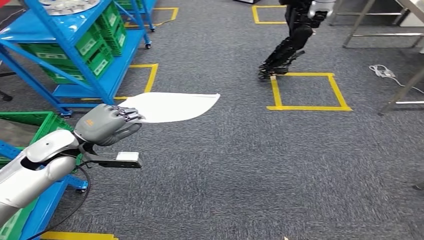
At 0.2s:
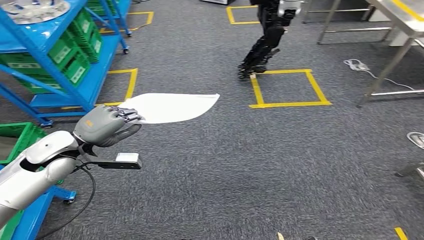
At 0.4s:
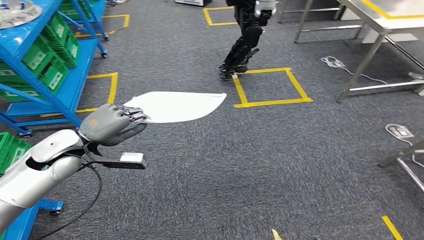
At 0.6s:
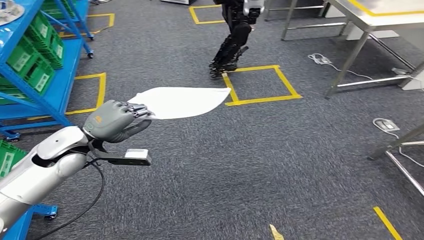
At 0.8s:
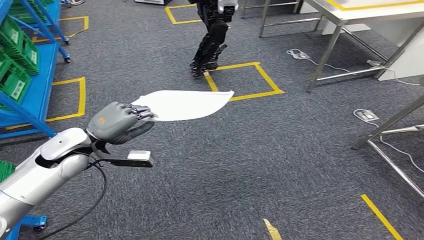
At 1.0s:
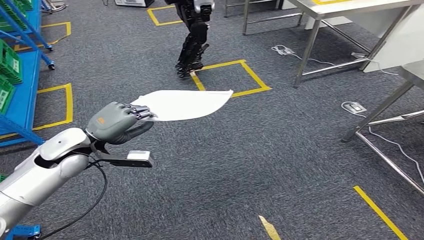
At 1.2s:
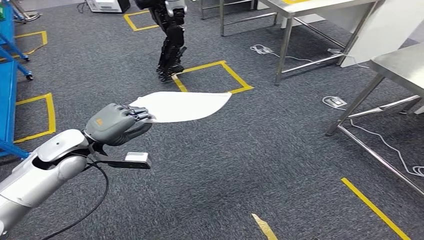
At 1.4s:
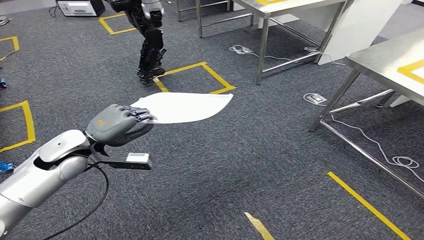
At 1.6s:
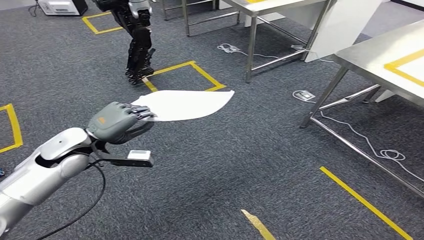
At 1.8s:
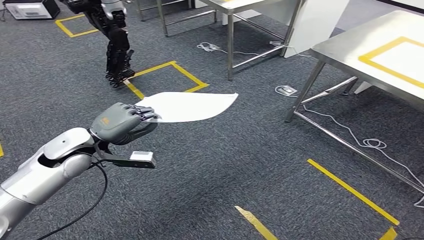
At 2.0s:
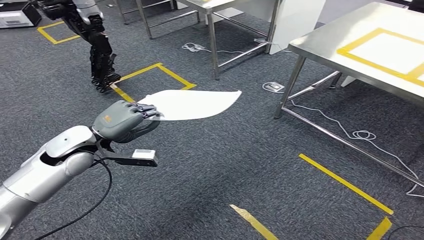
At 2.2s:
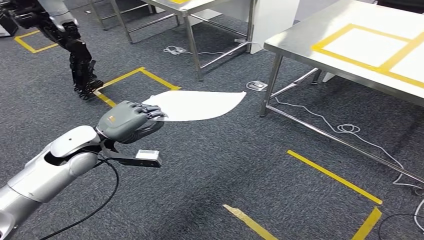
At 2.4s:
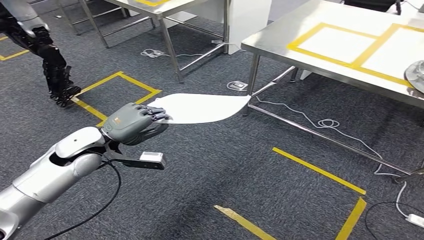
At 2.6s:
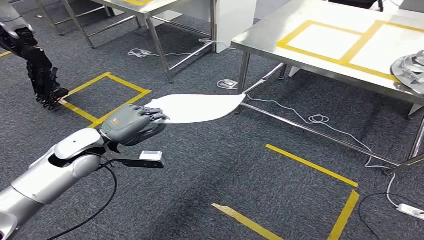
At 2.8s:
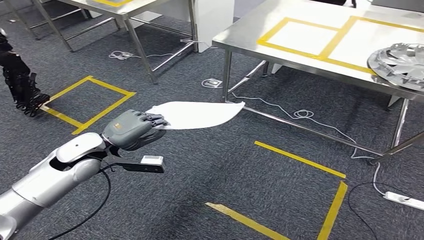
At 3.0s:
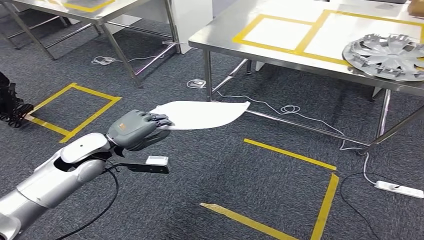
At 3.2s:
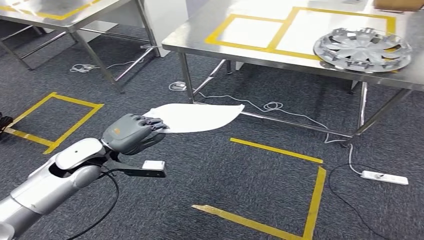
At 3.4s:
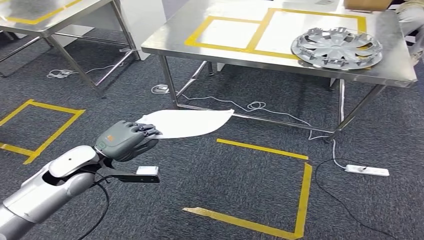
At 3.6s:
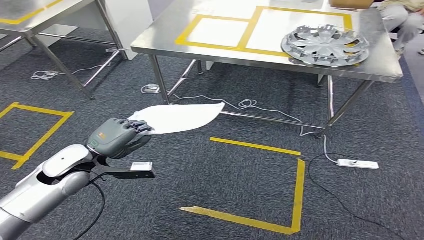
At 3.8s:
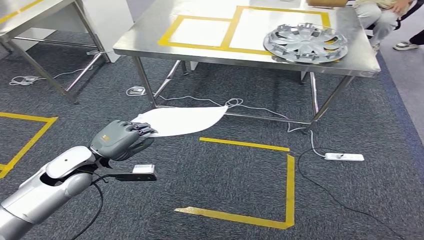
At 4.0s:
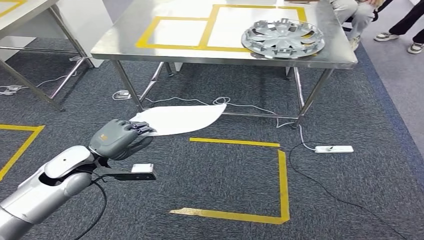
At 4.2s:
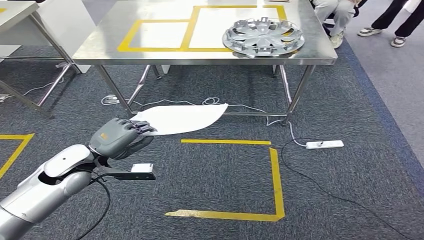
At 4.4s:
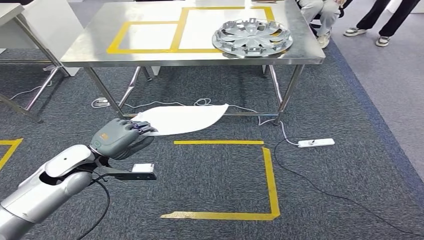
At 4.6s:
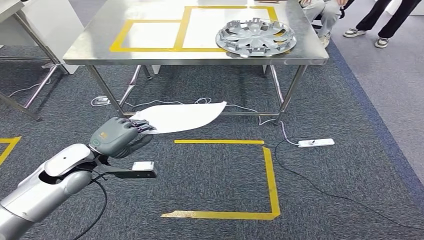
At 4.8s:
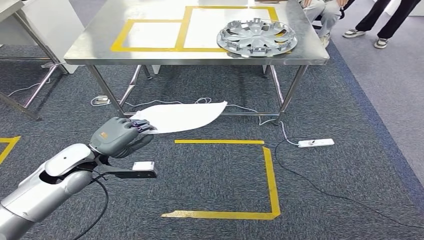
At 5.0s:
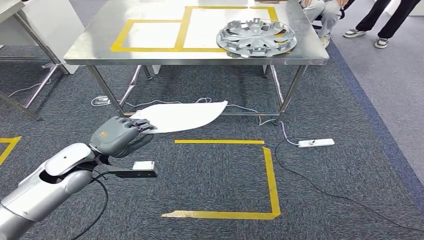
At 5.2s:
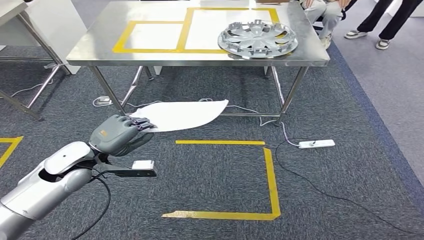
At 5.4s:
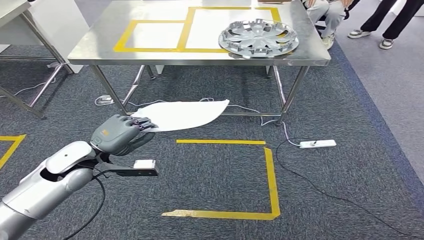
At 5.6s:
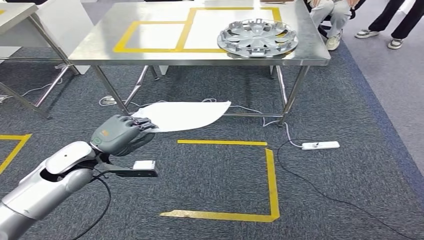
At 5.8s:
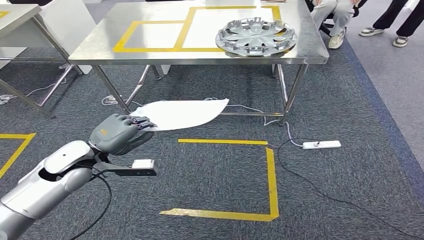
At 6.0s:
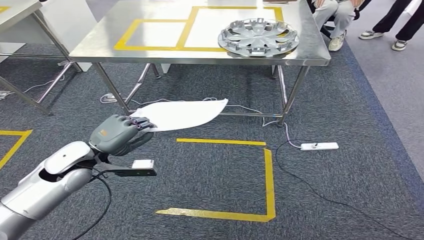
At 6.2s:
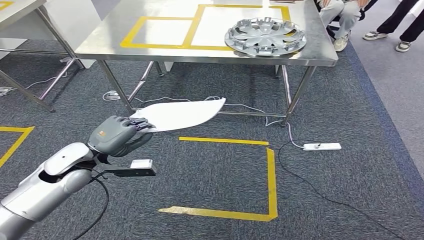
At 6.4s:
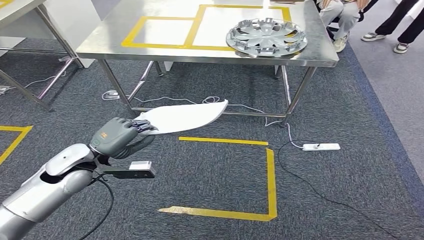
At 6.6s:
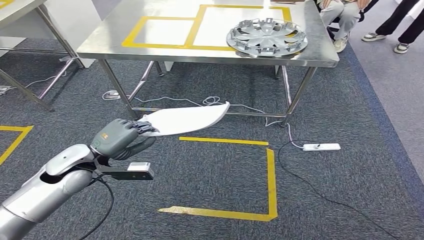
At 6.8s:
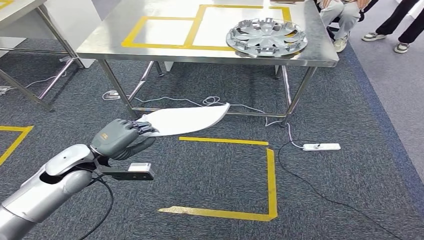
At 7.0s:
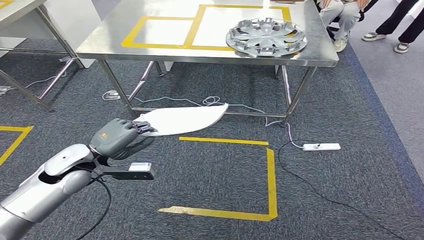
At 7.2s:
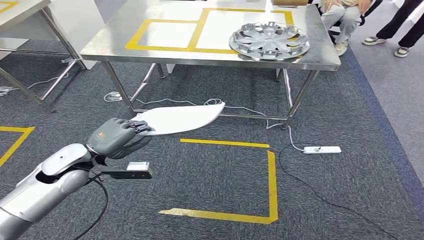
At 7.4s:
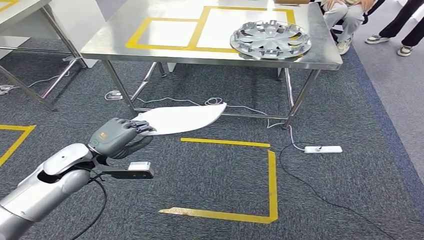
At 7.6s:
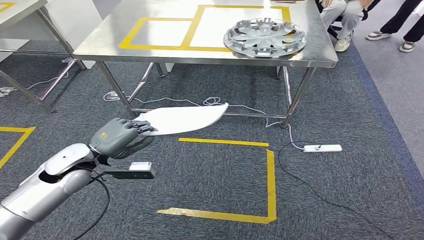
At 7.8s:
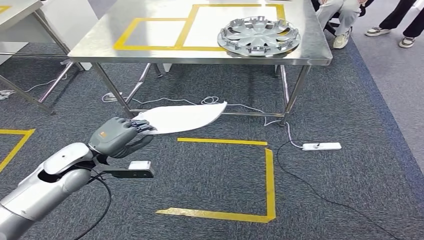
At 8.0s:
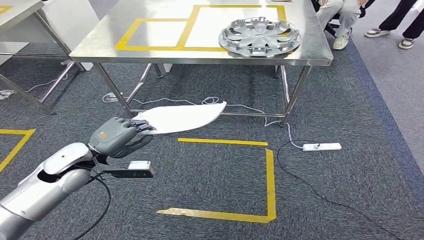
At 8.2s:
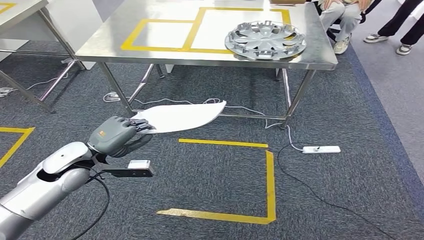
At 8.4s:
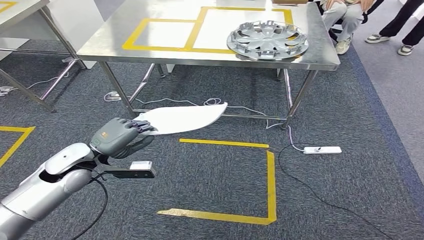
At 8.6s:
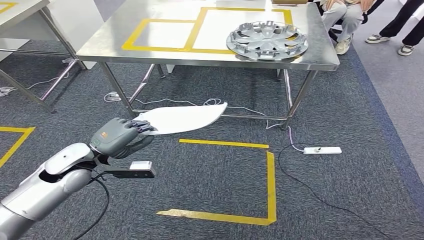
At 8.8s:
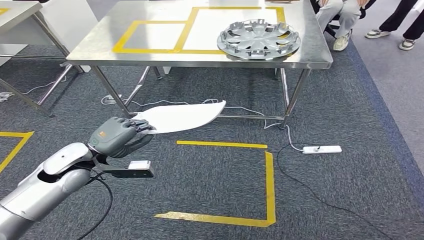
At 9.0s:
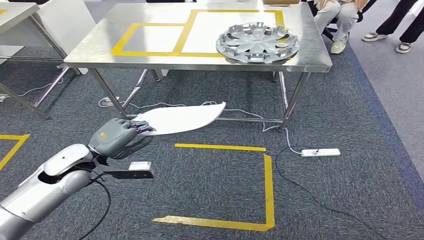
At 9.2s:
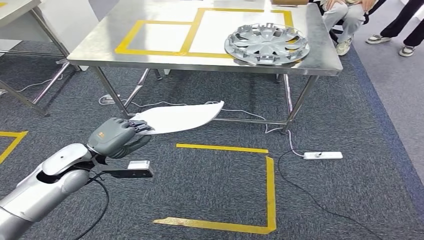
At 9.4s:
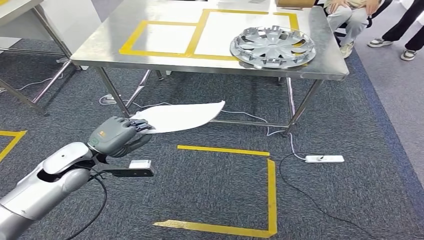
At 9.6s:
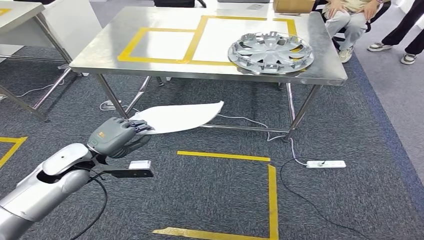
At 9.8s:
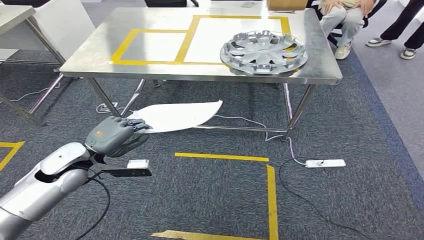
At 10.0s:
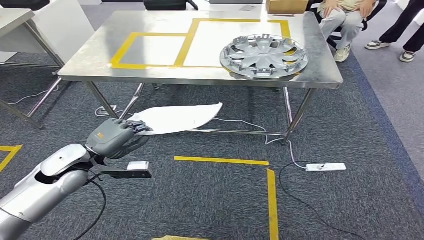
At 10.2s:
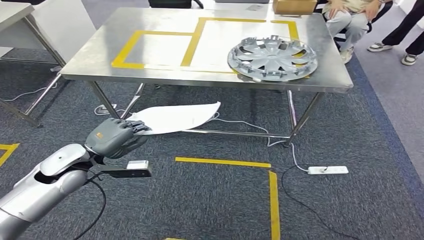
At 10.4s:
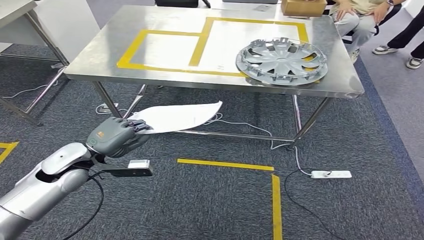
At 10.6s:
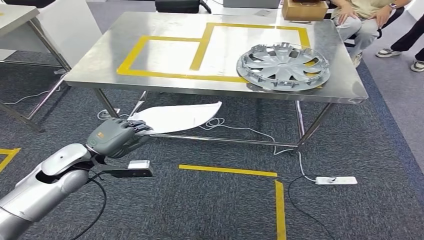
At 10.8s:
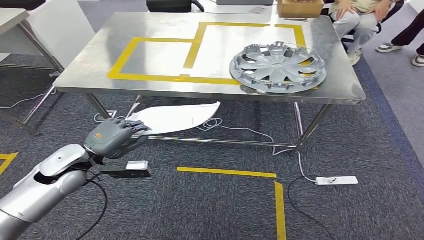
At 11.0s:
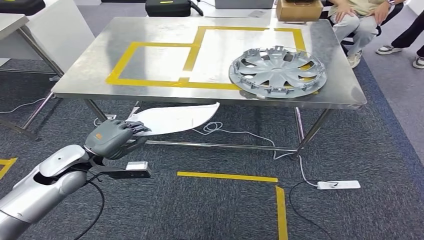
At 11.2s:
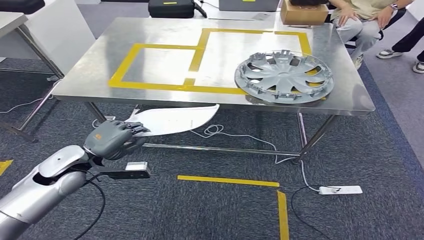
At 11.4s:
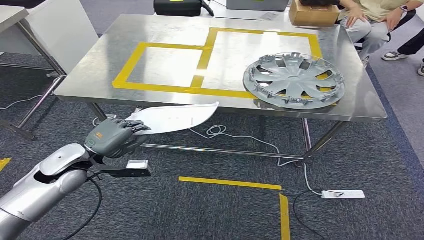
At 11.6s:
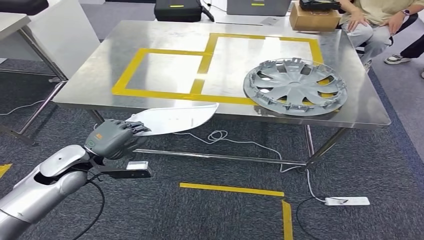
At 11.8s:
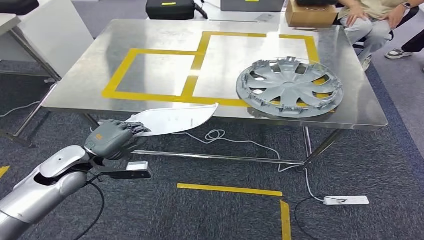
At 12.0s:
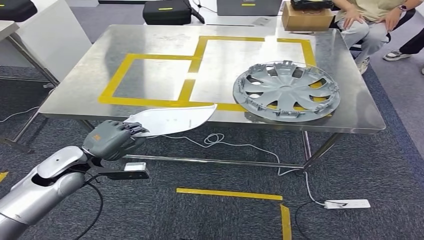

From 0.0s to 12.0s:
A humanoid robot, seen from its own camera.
From 6.0s to 7.6s: The hands move only a little.

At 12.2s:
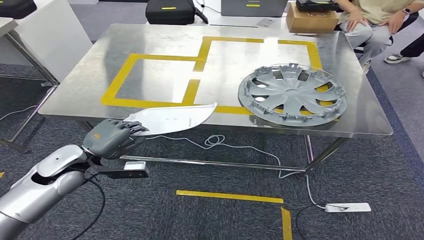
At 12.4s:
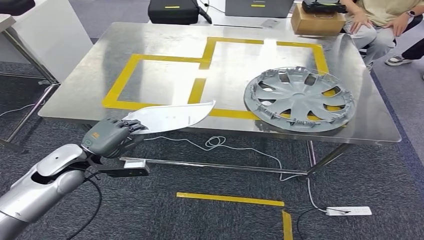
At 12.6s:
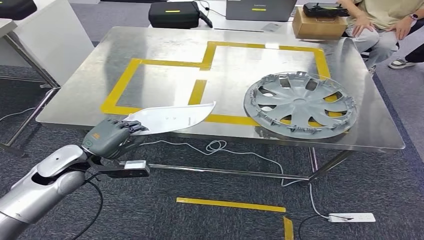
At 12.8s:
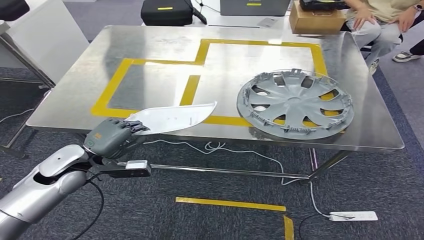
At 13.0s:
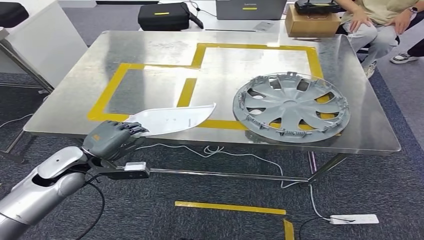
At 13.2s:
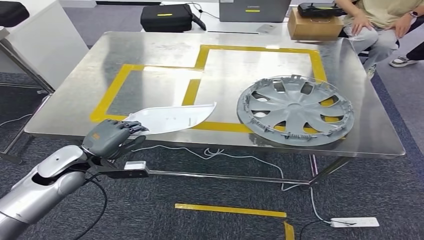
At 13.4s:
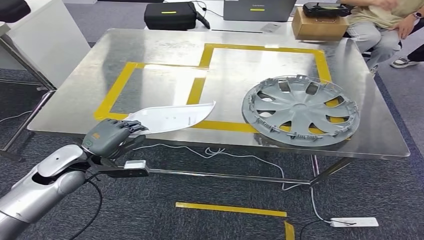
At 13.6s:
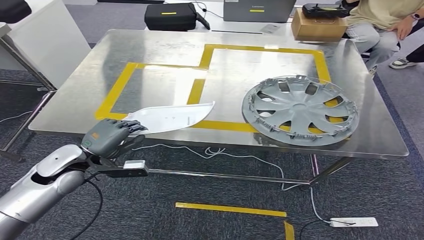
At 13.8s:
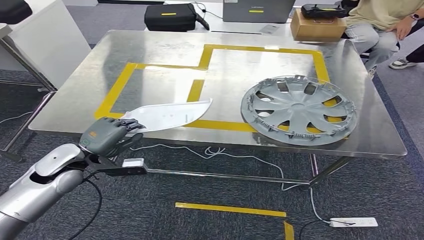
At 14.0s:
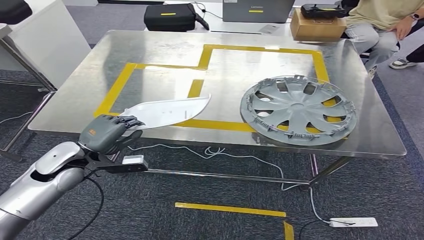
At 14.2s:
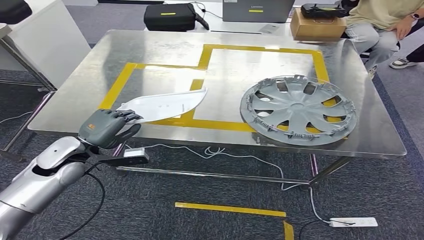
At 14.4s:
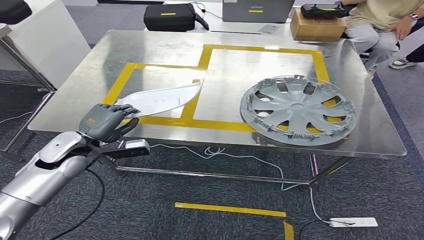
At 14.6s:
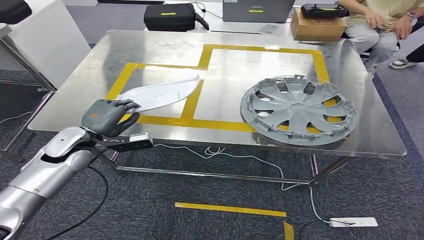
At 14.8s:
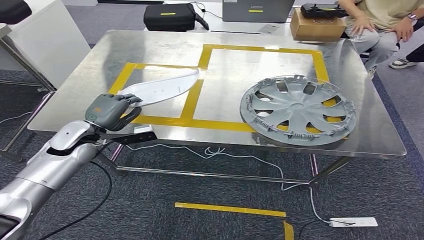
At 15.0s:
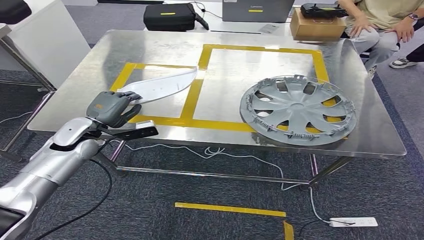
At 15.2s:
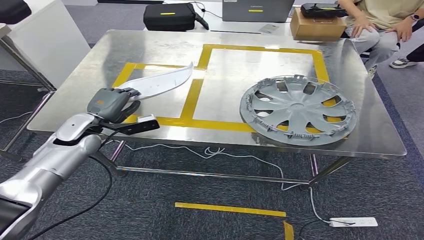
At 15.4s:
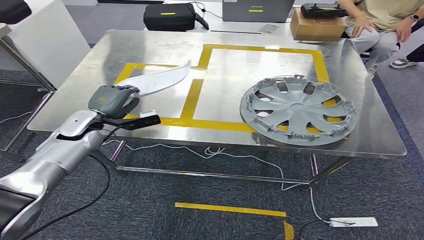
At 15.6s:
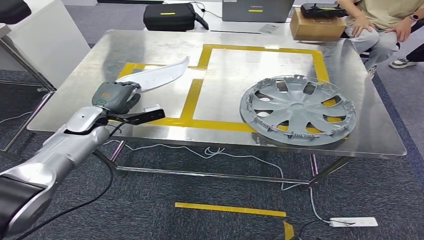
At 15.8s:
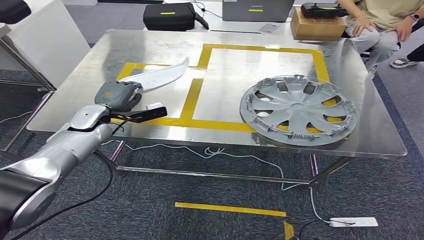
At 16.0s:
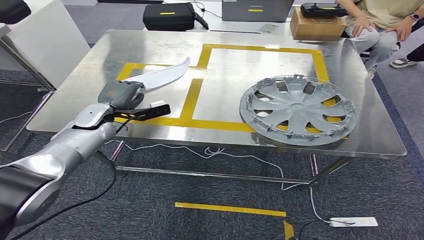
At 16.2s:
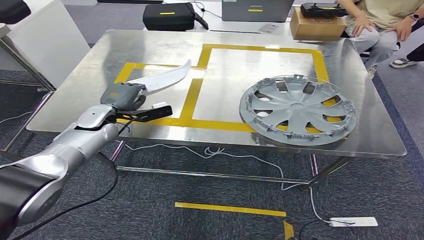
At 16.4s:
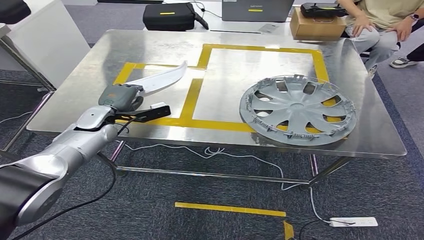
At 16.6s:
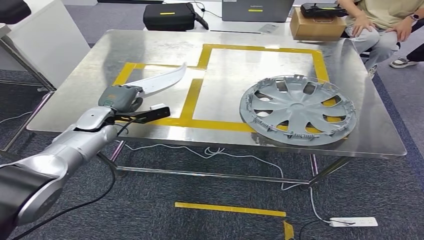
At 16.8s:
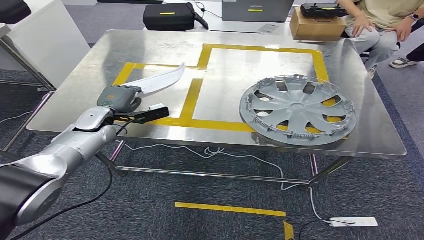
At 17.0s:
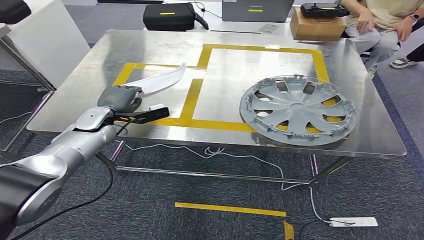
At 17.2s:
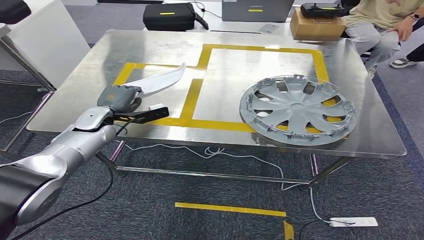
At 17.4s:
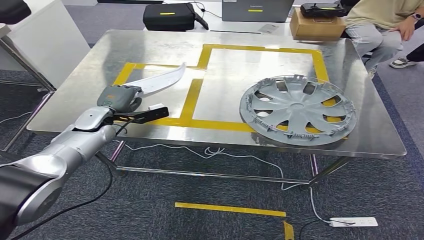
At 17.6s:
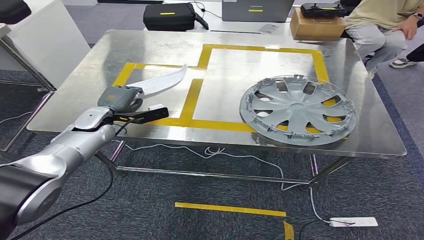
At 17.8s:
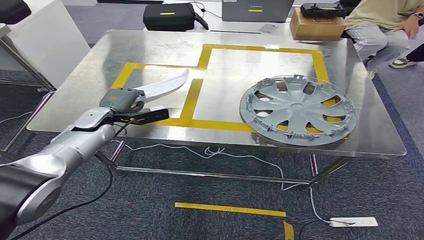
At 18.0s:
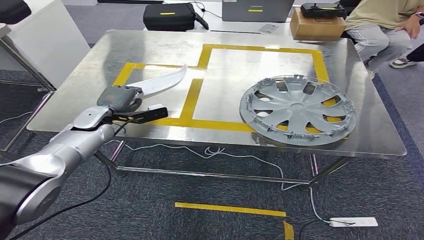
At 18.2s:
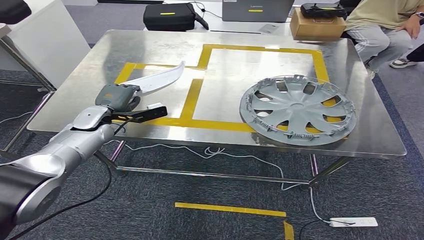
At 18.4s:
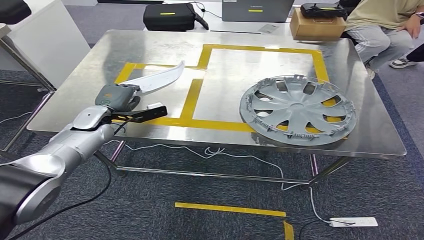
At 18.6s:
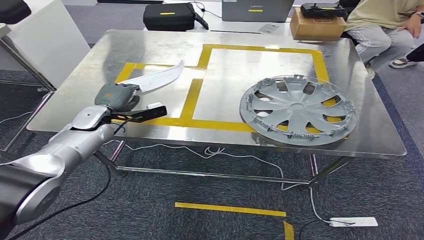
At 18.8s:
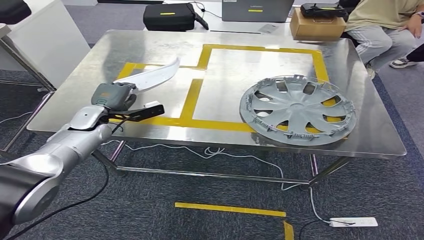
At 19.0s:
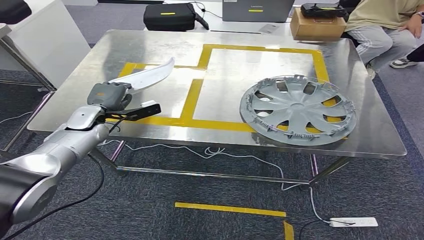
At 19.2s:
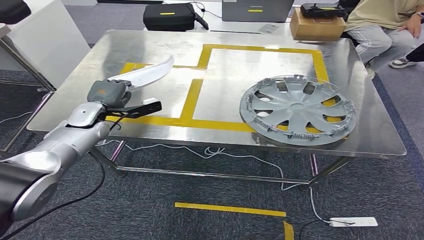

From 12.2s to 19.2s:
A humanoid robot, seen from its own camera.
Step, from 12.2s to 16.0s: Move the small component to the workbench.
From 13.6s to 15.0s: The left hand goes some 10 cm forward.
From 15.0s to 16.4s: The left hand goes about 5 cm forward.
From 16.4s to 19.2s: The hands stay close to where they were, moving slightly.
